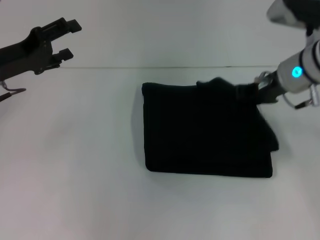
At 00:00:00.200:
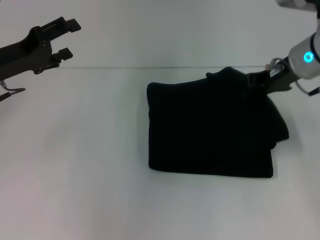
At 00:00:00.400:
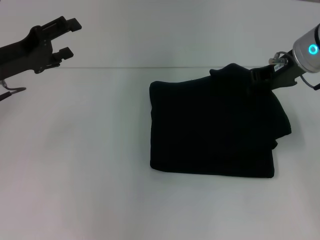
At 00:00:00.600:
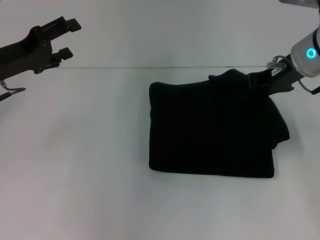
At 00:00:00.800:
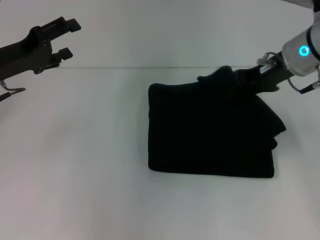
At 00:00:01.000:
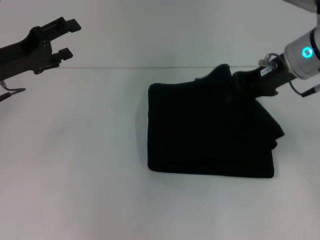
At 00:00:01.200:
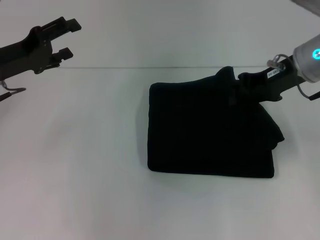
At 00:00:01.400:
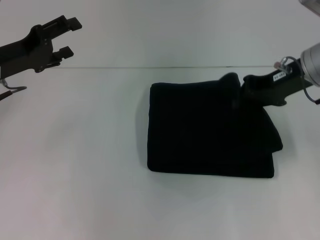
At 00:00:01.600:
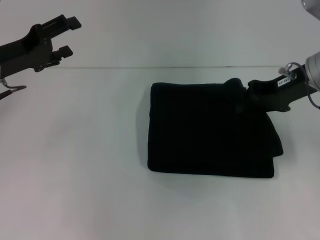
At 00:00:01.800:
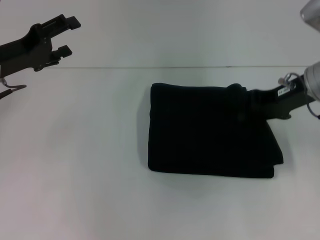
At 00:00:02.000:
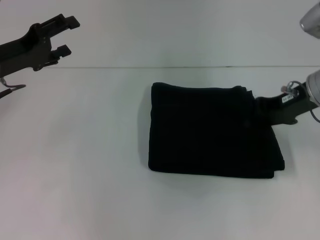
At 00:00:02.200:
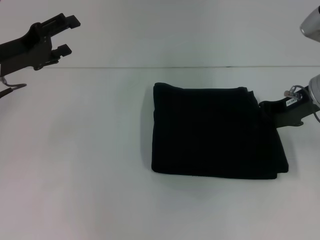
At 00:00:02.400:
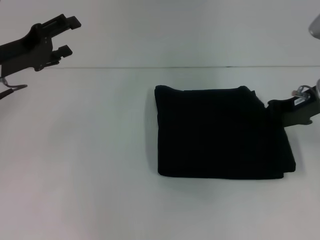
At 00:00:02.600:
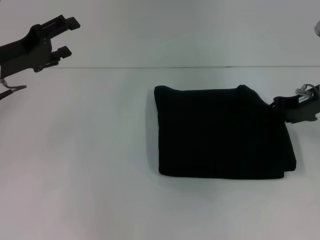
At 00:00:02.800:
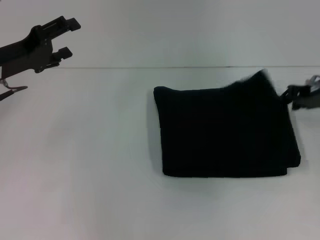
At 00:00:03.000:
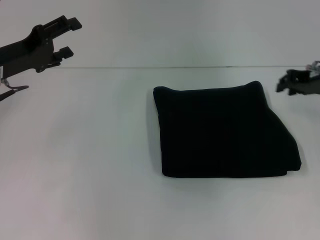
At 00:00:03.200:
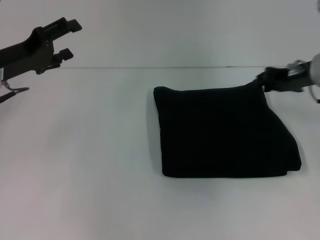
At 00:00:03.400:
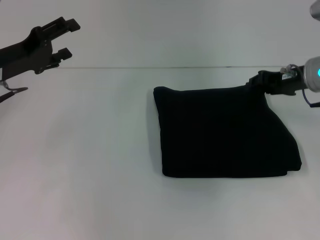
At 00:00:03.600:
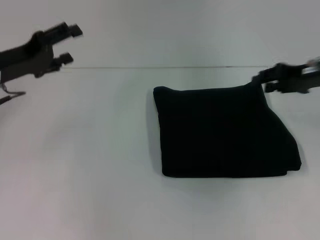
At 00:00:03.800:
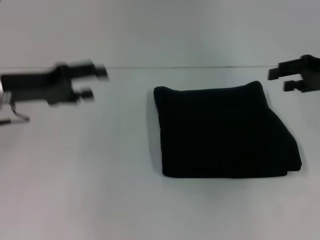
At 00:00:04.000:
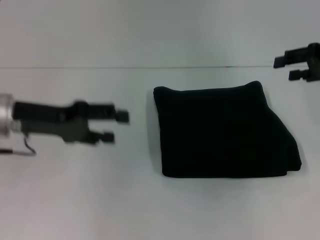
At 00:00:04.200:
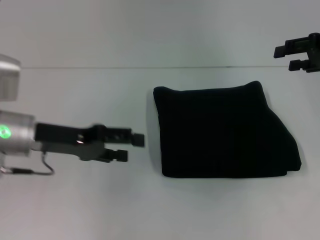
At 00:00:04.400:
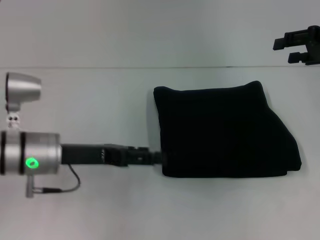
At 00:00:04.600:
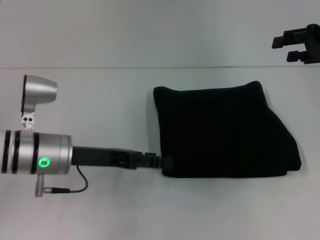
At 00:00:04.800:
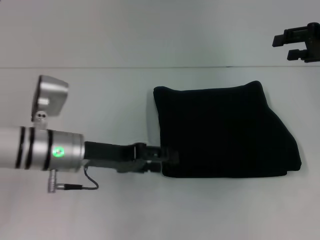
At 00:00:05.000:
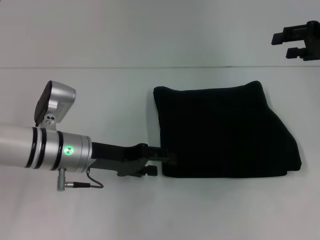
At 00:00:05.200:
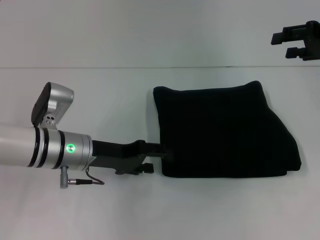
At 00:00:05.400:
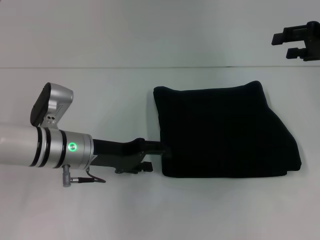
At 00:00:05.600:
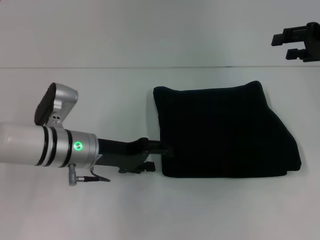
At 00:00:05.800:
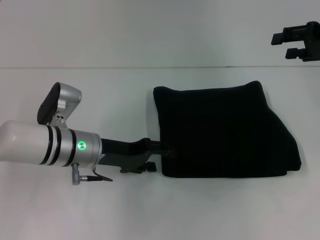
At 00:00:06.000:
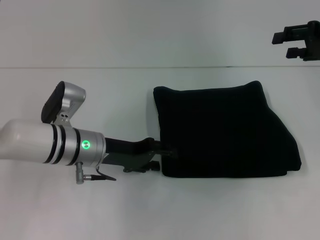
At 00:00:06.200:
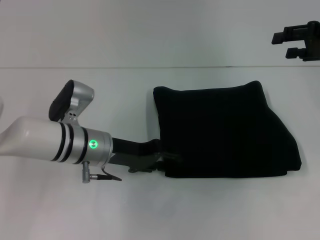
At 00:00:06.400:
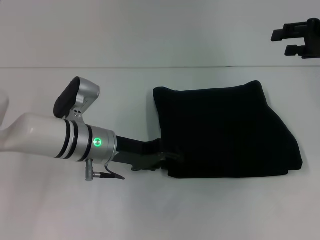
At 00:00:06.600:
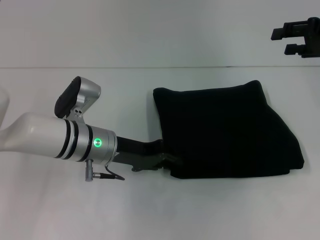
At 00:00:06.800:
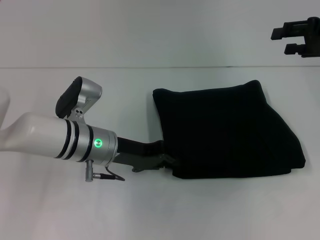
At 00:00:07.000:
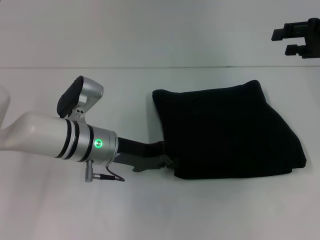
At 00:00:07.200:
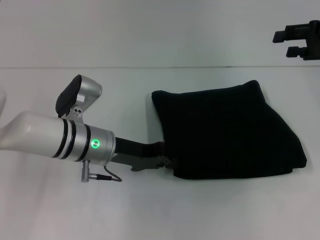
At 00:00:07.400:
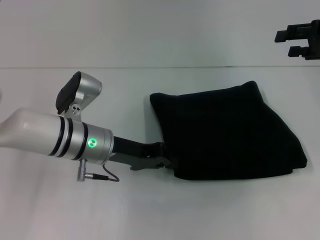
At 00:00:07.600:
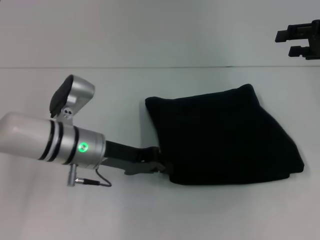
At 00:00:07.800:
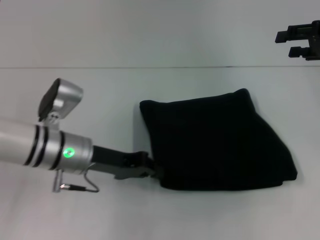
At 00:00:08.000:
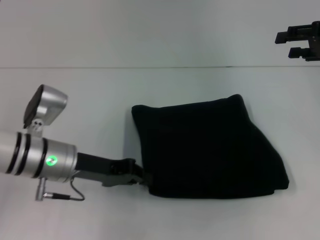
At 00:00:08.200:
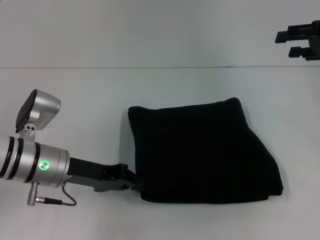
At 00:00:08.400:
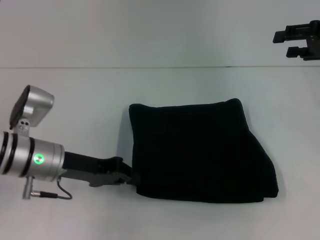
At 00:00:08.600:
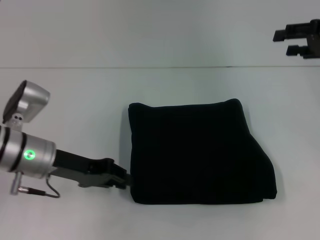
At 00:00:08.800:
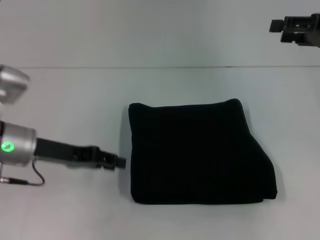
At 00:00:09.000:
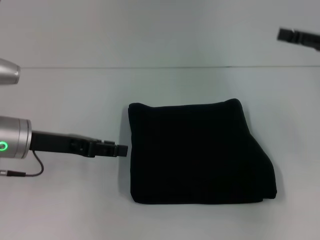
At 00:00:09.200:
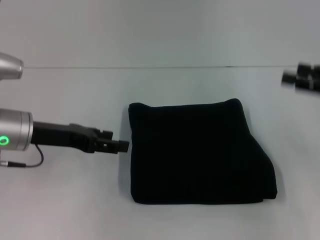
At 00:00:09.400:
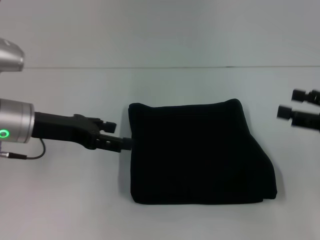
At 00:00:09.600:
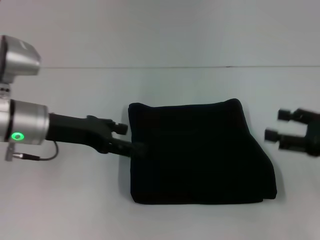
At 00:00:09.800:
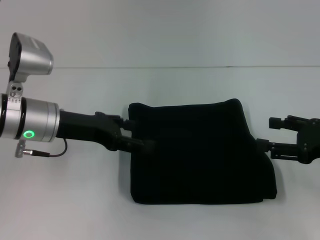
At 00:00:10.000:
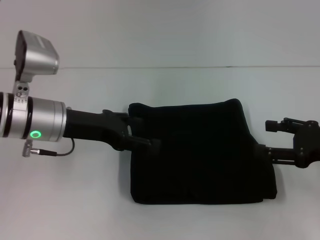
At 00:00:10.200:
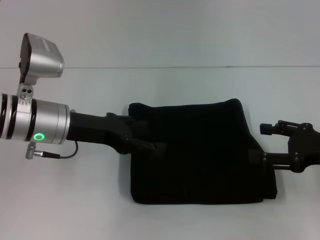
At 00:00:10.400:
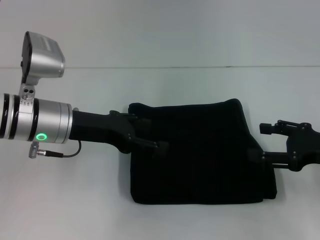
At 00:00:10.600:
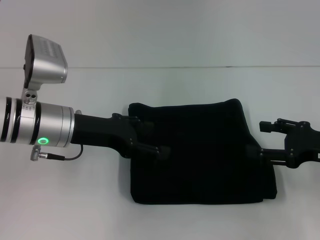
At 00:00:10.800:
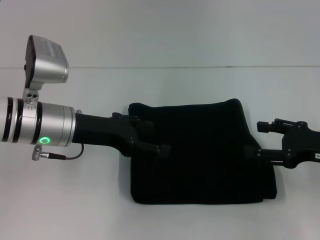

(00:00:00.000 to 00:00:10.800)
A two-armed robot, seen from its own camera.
00:00:00.000 - 00:00:01.600: There are only small adjustments of the grippers.
00:00:01.600 - 00:00:03.000: The right gripper changes place by about 5 cm.
00:00:03.000 - 00:00:04.600: The right gripper travels upward by approximately 5 cm, and opens its fingers. Meanwhile the left gripper goes roughly 15 cm to the right, downward and backward.
00:00:04.600 - 00:00:06.200: The left gripper changes place by roughly 5 cm.
00:00:06.200 - 00:00:07.800: The left gripper closes its fingers.
00:00:07.800 - 00:00:09.200: The left gripper moves to the left, about 5 cm, and opens its fingers, while the right gripper shifts approximately 10 cm backward and downward.
00:00:09.200 - 00:00:10.800: The right gripper goes roughly 5 cm downward, while the left gripper moves to the right, about 5 cm, and opens up.

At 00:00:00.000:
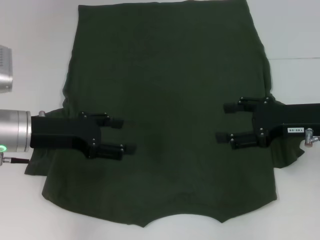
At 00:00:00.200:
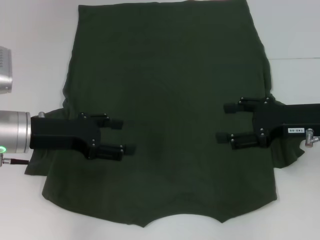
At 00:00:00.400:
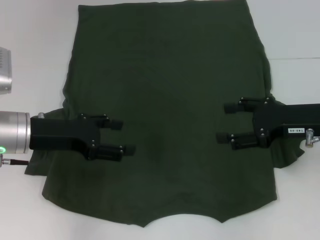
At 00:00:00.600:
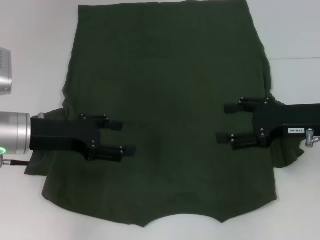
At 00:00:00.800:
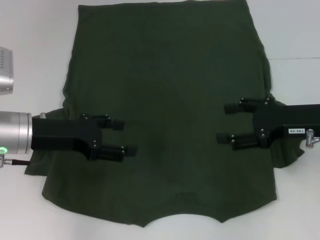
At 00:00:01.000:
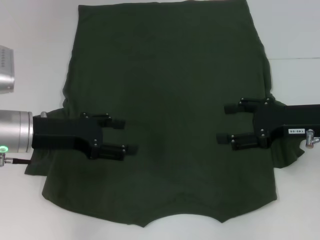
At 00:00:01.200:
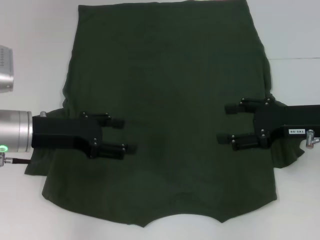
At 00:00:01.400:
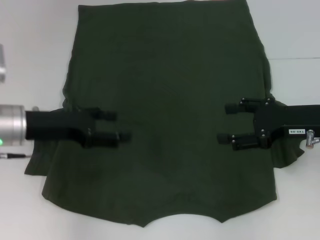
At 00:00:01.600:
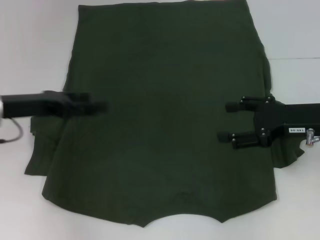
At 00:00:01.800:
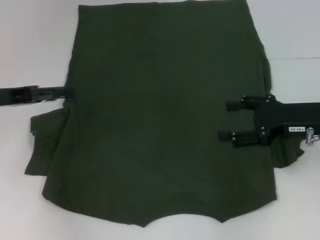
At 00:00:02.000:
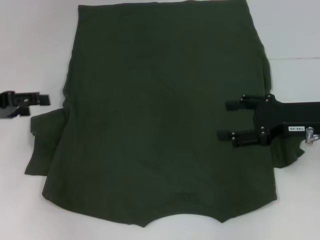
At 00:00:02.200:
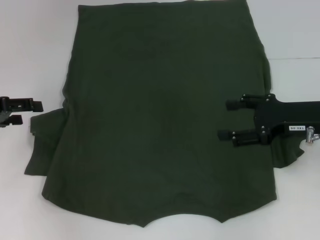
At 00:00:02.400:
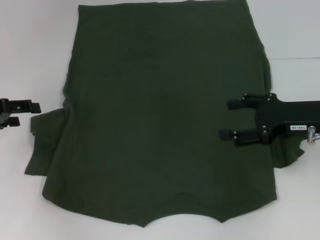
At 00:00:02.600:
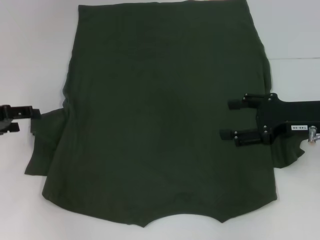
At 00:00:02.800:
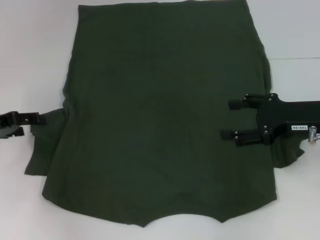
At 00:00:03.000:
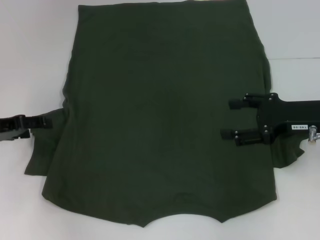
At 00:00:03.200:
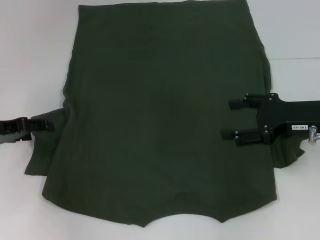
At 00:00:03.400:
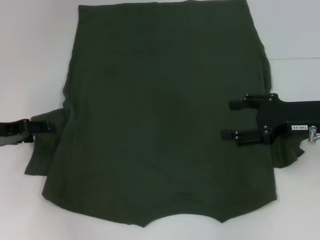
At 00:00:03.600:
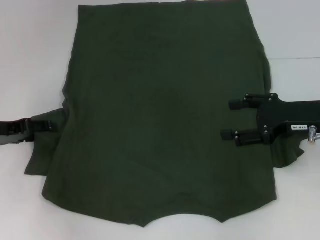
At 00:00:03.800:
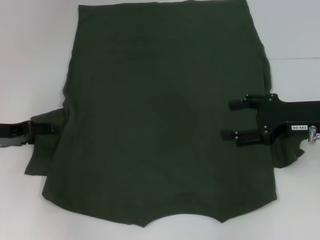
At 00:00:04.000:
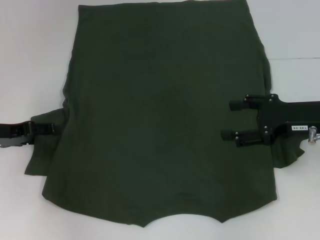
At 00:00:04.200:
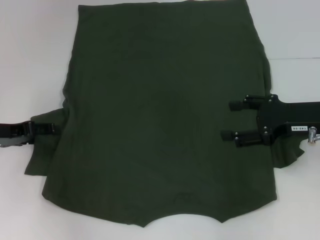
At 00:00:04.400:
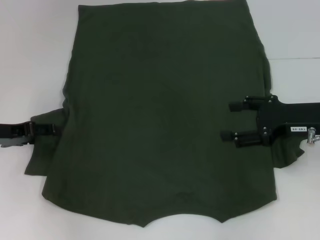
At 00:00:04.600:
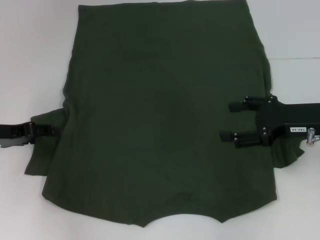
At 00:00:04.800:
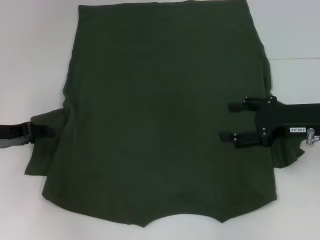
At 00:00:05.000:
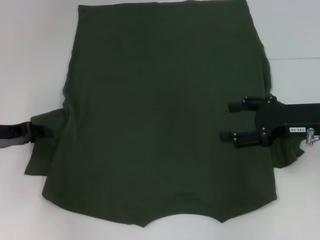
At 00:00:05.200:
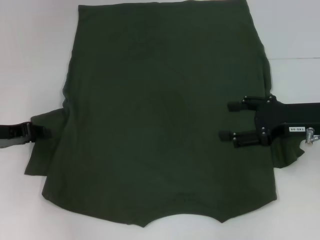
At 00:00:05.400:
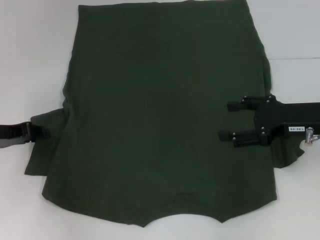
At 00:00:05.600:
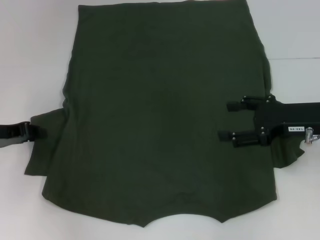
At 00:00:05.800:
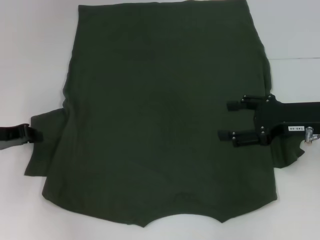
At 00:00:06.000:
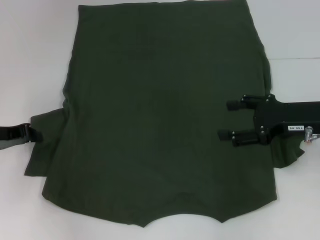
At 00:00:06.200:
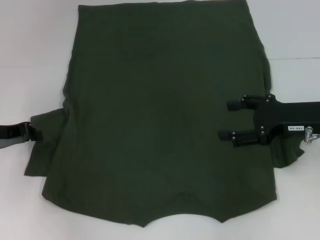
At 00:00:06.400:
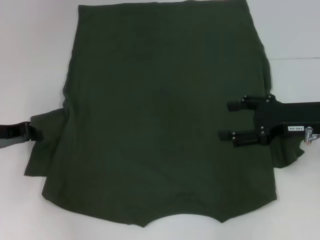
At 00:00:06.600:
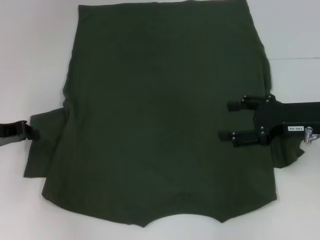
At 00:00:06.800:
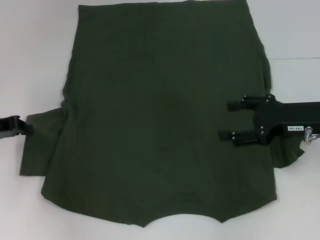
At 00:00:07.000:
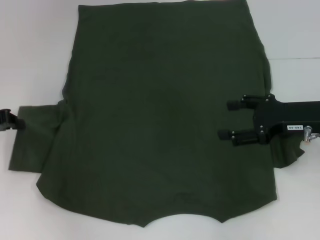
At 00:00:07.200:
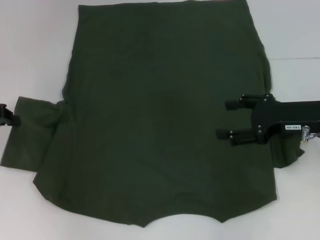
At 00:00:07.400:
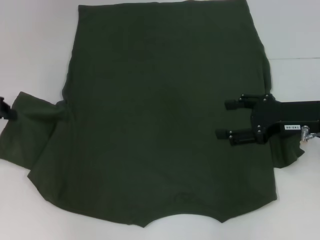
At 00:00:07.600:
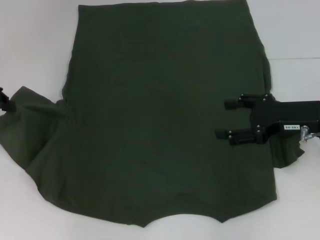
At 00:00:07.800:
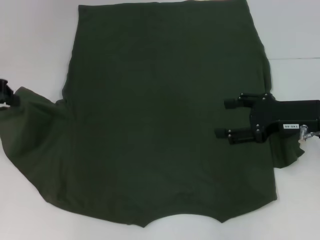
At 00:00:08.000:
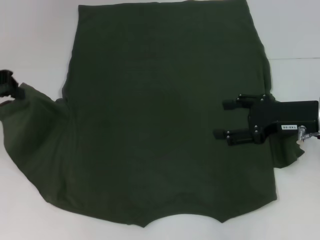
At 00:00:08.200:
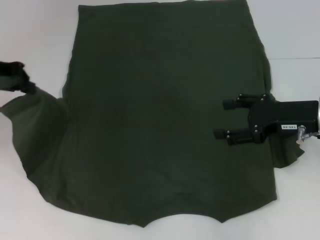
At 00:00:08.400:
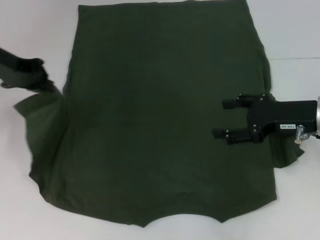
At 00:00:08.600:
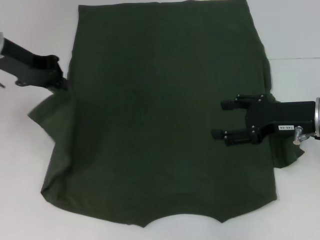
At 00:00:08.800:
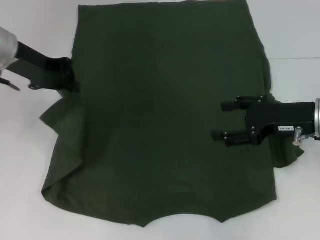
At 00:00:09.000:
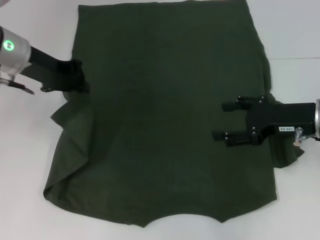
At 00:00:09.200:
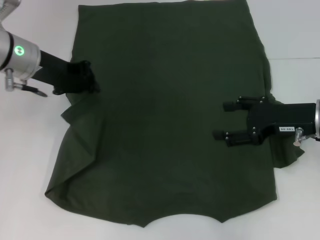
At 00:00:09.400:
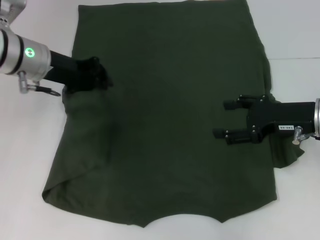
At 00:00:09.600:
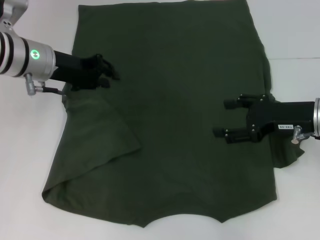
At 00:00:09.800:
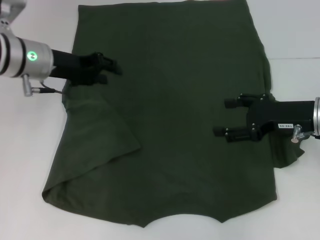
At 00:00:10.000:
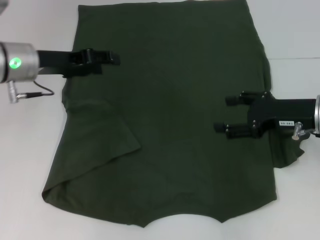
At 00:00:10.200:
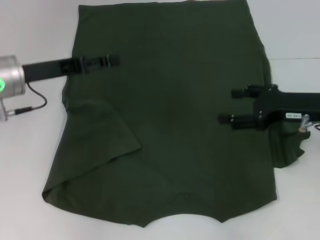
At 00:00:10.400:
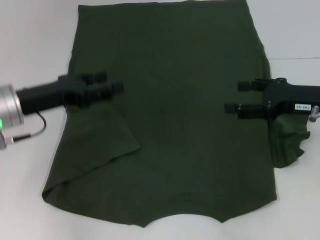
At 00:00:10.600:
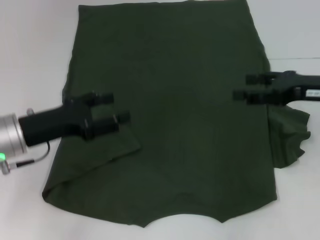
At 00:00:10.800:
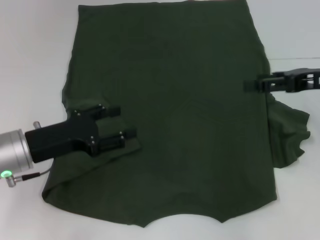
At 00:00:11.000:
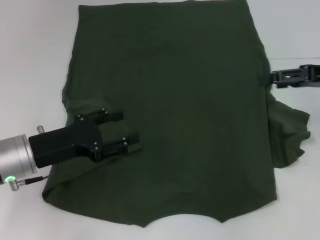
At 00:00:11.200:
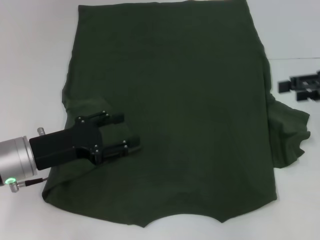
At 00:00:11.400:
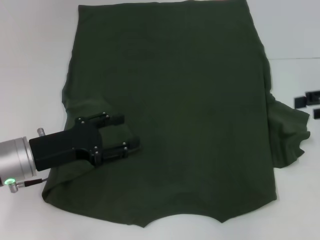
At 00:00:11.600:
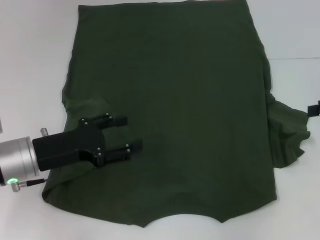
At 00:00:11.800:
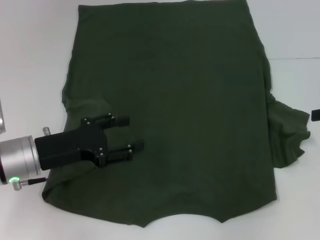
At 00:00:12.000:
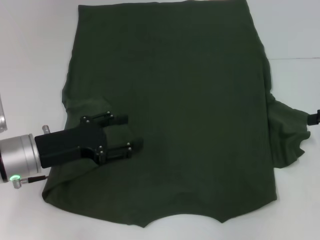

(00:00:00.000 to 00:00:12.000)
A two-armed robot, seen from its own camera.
Step, 00:00:00.000 - 00:00:10.200: Fold the bottom left sleeve with your left hand.
00:00:01.600 - 00:00:03.000: The left gripper moves to the left, some 5 cm.
00:00:03.000 - 00:00:04.400: Both grippers stay about where they are.
00:00:04.400 - 00:00:06.000: The left gripper closes.
00:00:06.000 - 00:00:07.600: The left gripper is displaced upward by about 10 cm.
00:00:07.600 - 00:00:09.000: The left gripper goes some 10 cm to the right.
00:00:09.000 - 00:00:10.400: The left gripper moves backward and downward, some 10 cm, and opens up.
00:00:10.400 - 00:00:12.000: The left gripper moves approximately 5 cm. The right gripper moves to the right, about 10 cm.
